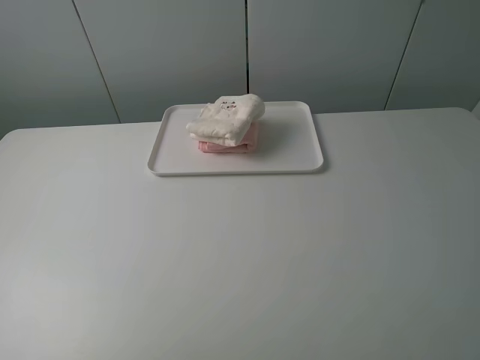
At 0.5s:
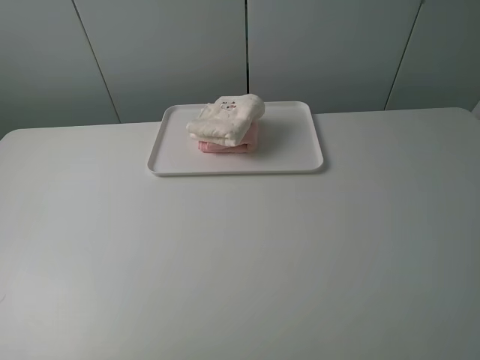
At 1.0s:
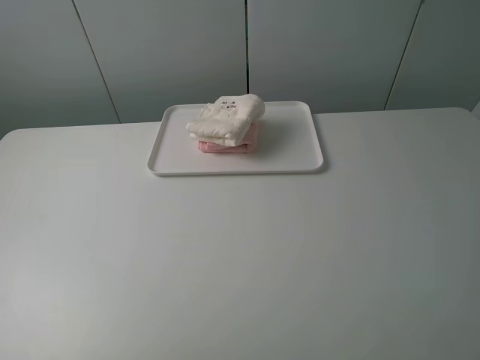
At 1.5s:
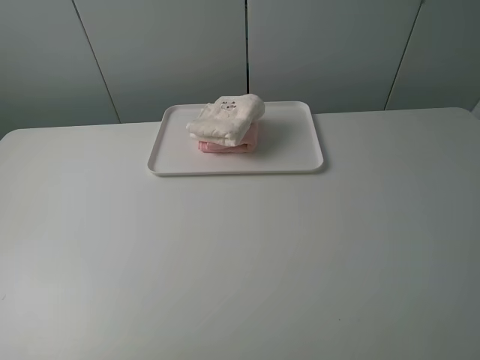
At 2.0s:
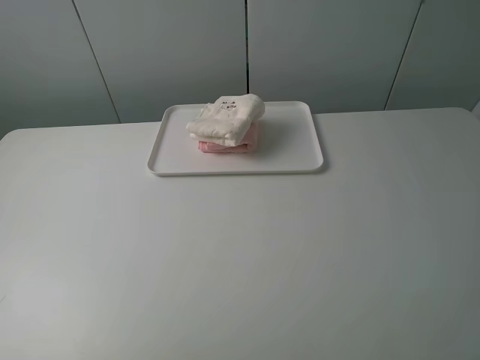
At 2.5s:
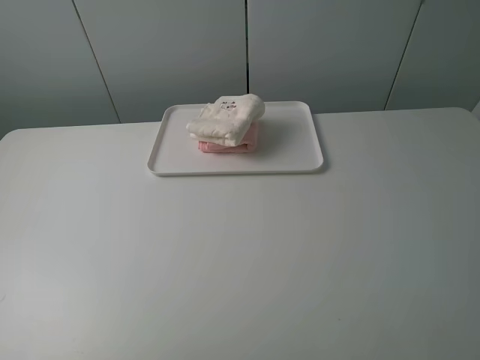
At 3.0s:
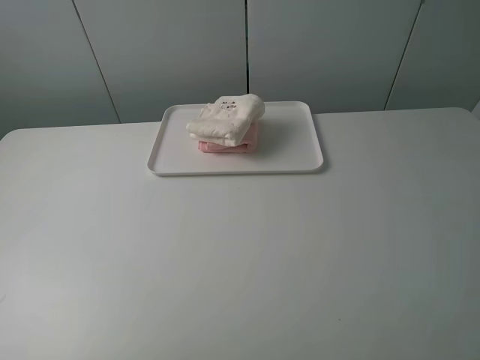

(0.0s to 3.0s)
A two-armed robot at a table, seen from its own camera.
Task of the whole recording: fold one of the towels by two grippers and place it on the tray,then fold another towel by two grippers and place it on the folded towel.
0.0s - 3.0s: Neither gripper changes place.

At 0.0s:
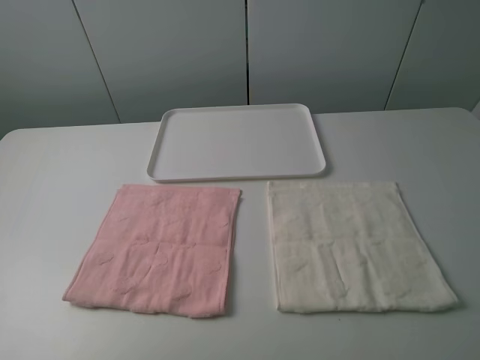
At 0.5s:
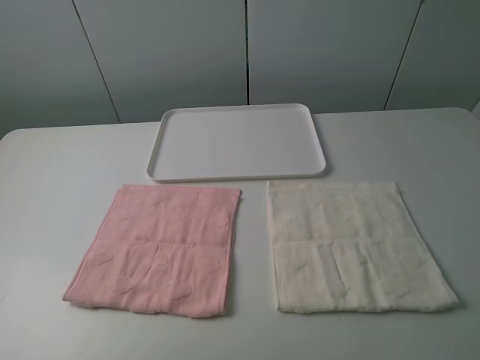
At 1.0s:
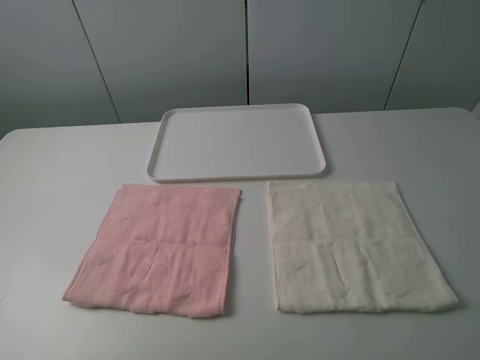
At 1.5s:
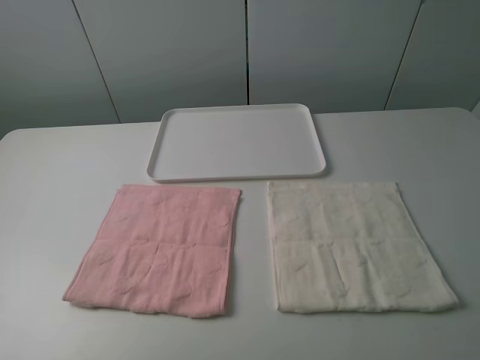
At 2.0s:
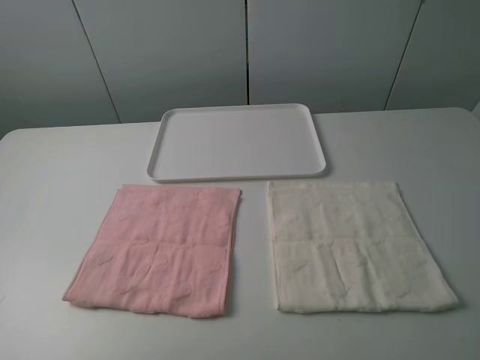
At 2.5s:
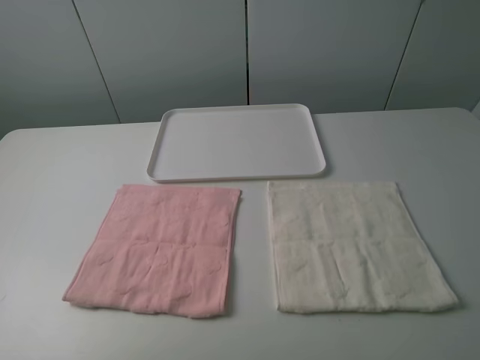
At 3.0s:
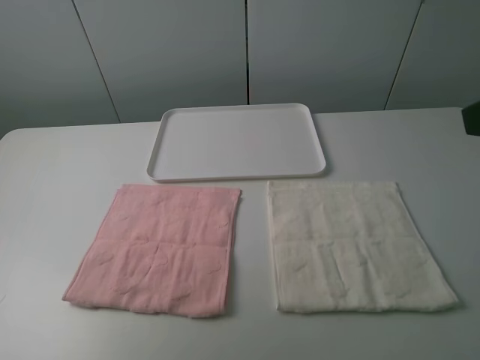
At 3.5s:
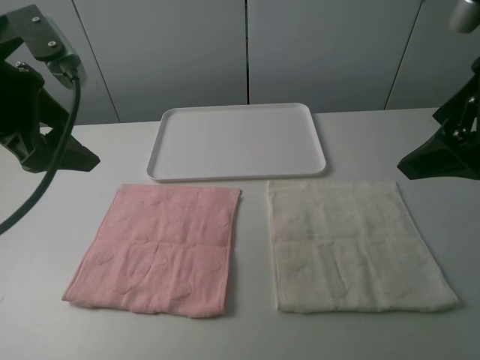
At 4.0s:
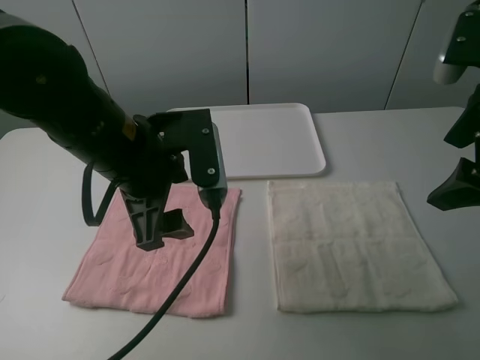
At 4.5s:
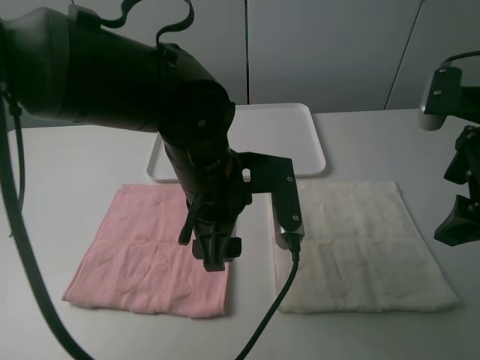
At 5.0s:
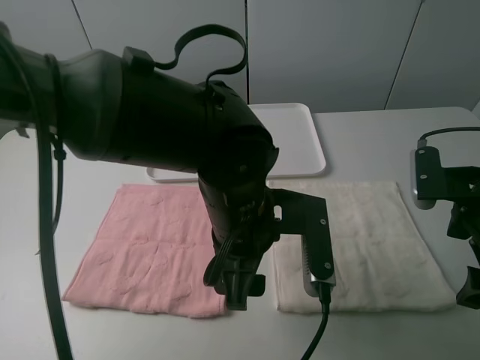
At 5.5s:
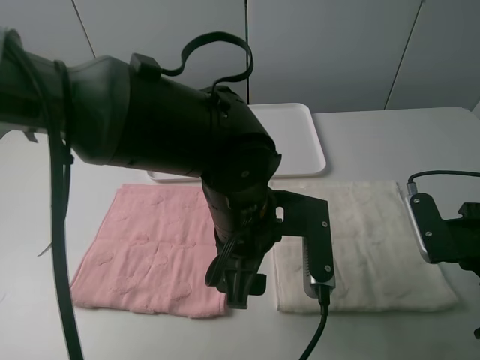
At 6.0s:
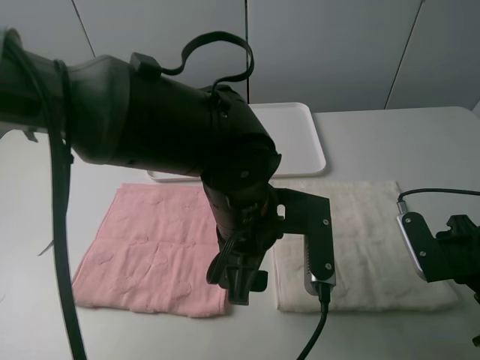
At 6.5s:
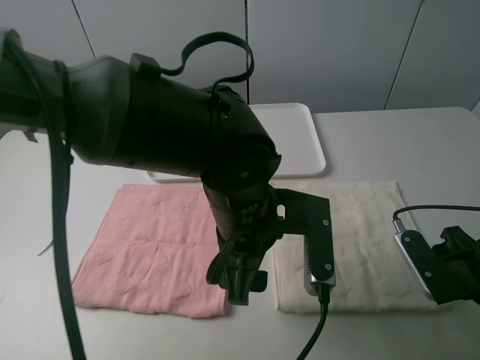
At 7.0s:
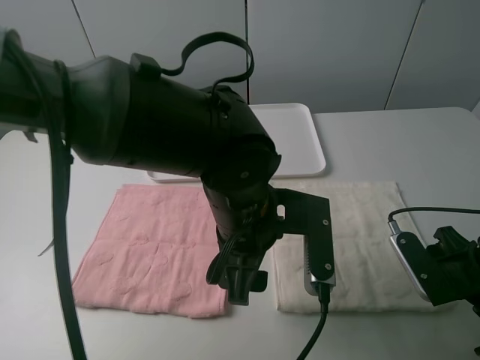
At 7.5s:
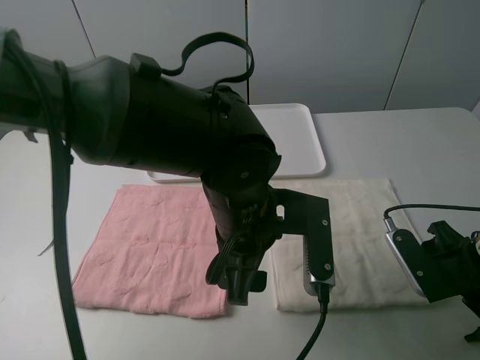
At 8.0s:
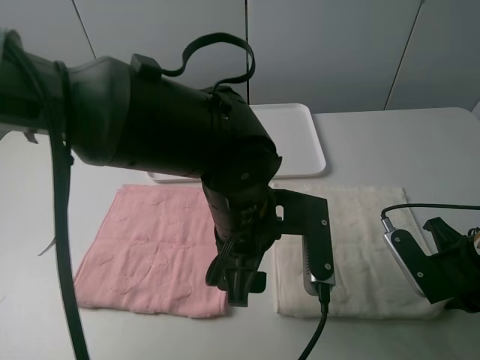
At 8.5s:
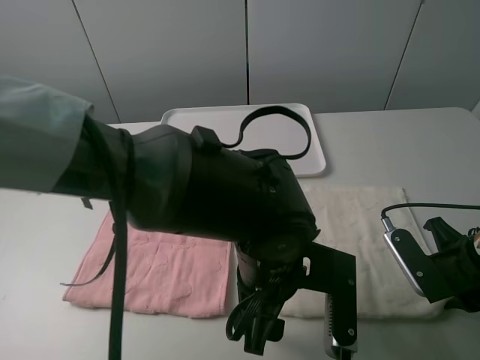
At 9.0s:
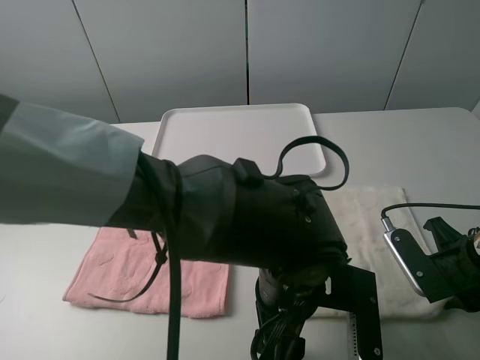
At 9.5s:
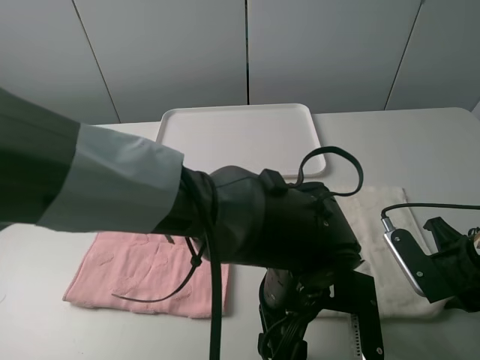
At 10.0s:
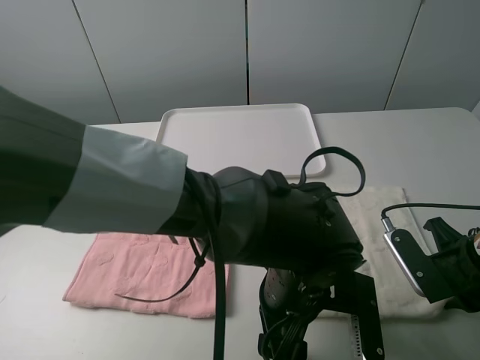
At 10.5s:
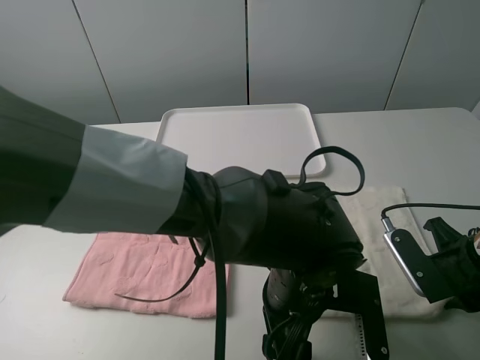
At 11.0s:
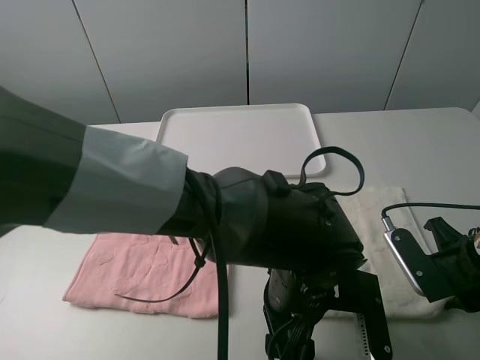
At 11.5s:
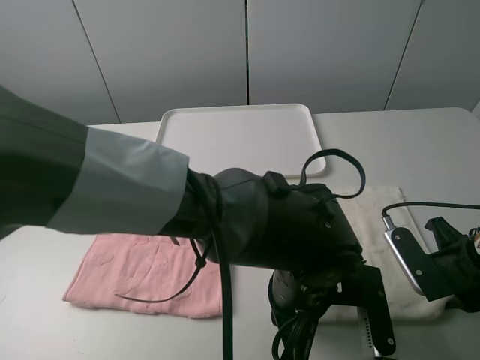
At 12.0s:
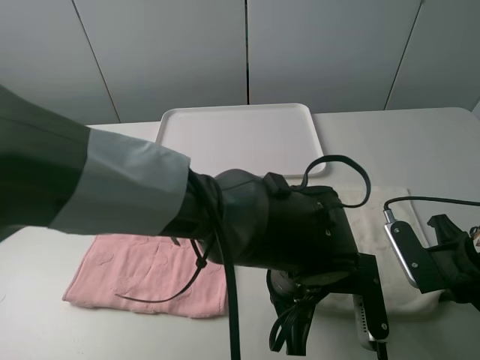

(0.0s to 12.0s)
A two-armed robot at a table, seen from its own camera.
Task of the whole recording: fold one of the towels by two grippers and place it on the tray,then fold another towel by two grippers and place it on the folded towel.
Step, 0.0s - 11.5s: Grasp the white towel with the left gripper.
2.0s - 4.0s: The left gripper shifts some 30 cm forward and to the right. The right gripper goes roughly 20 cm forward.
4.0s - 6.0s: The right gripper goes roughly 15 cm downward. The left gripper is displaced to the right and downward by roughly 10 cm.
6.0s - 8.0s: The right gripper closes.
8.0s - 10.0s: The left gripper is displaced downward and to the right by approximately 10 cm.
10.0s - 12.0s: The left gripper closes.

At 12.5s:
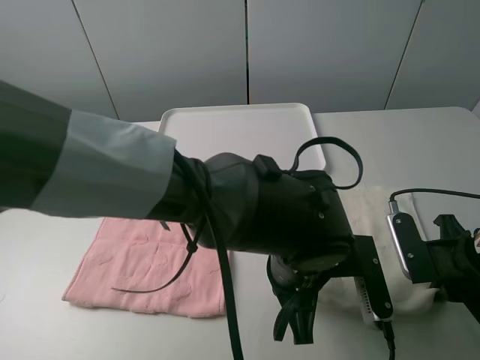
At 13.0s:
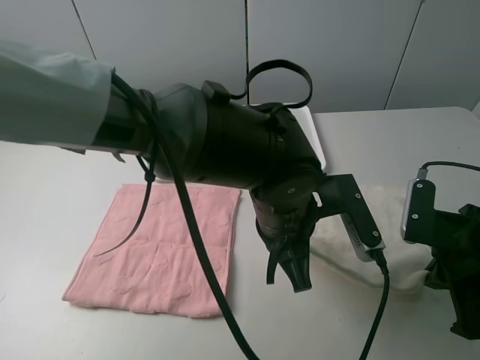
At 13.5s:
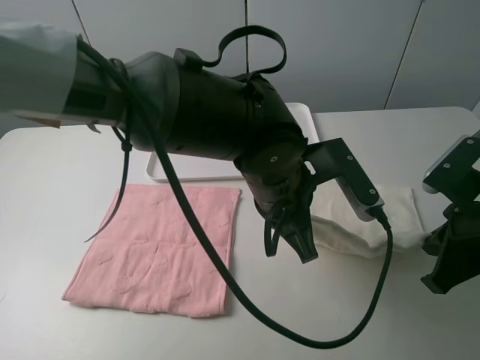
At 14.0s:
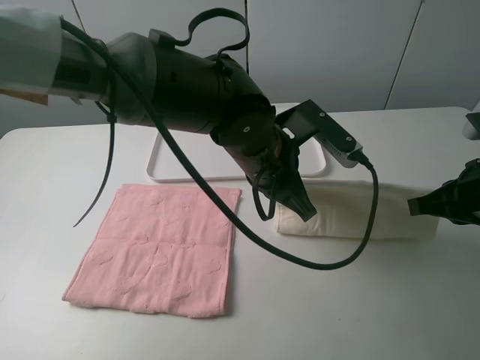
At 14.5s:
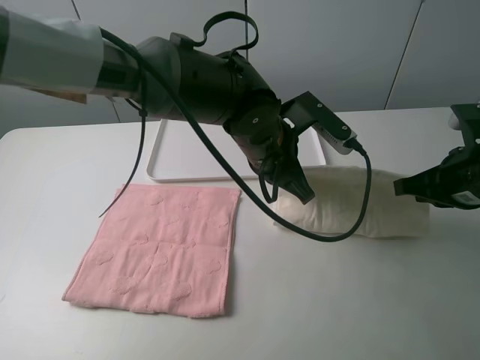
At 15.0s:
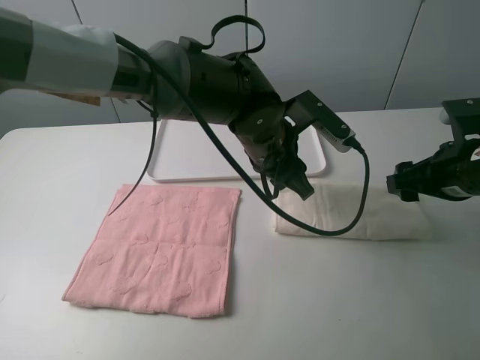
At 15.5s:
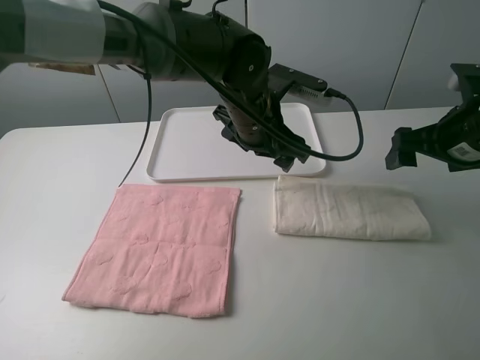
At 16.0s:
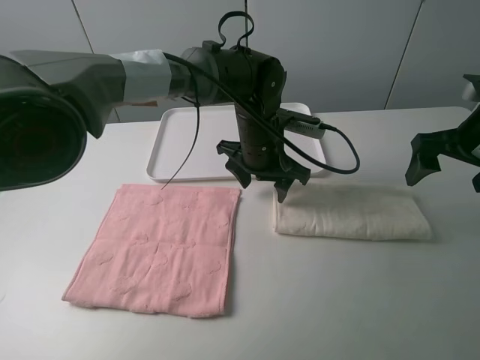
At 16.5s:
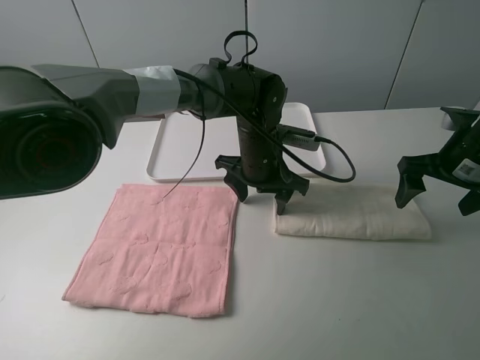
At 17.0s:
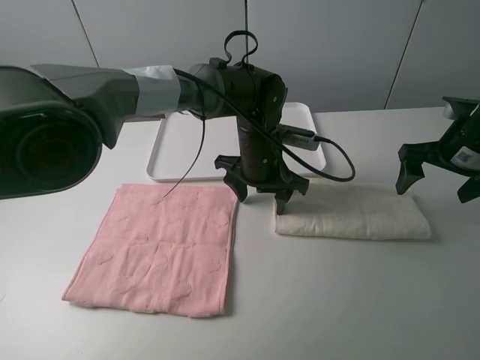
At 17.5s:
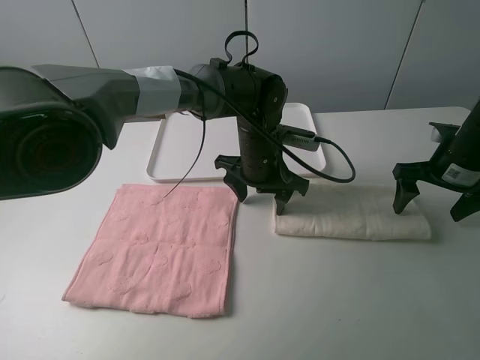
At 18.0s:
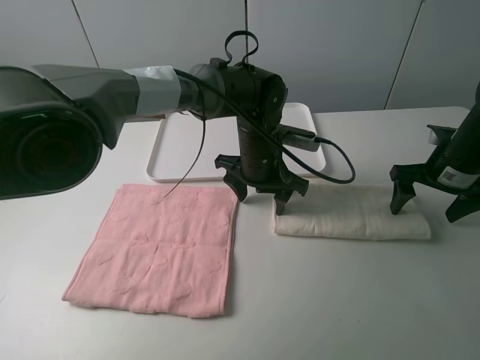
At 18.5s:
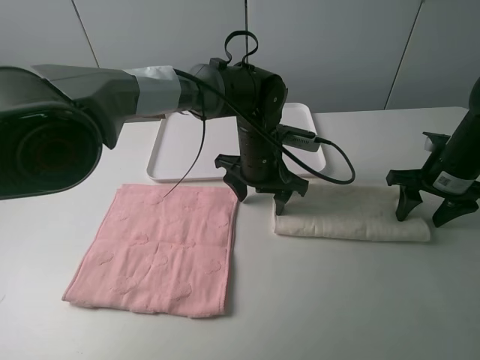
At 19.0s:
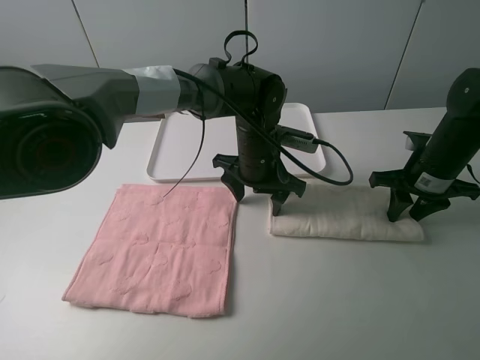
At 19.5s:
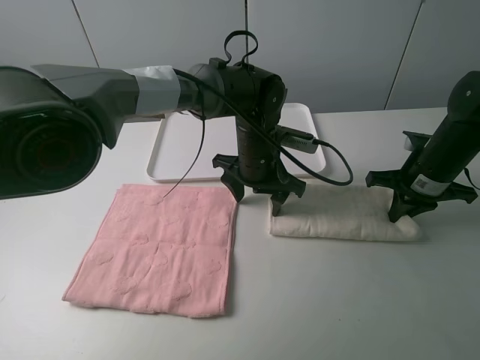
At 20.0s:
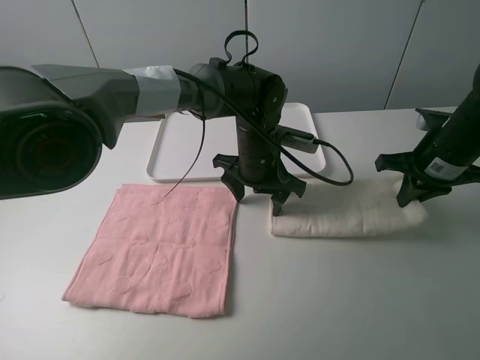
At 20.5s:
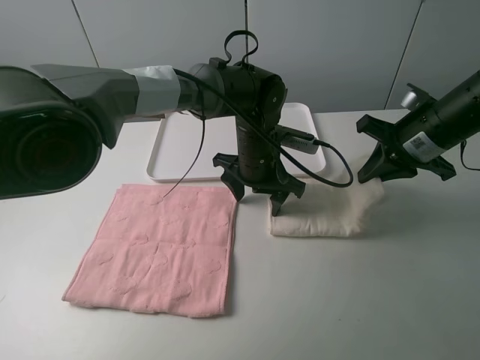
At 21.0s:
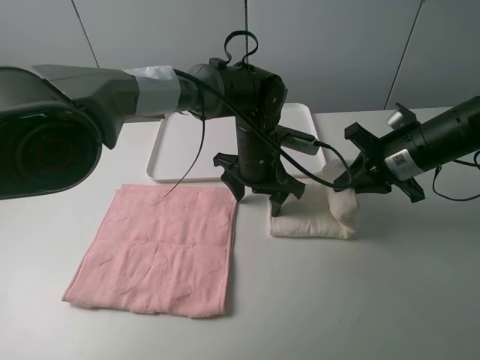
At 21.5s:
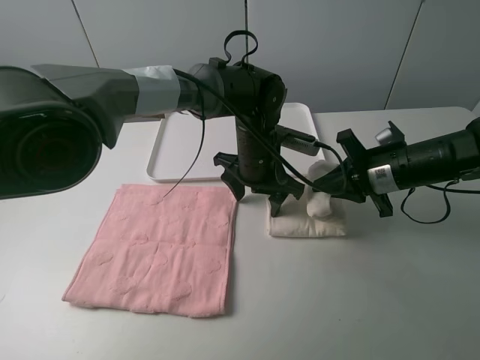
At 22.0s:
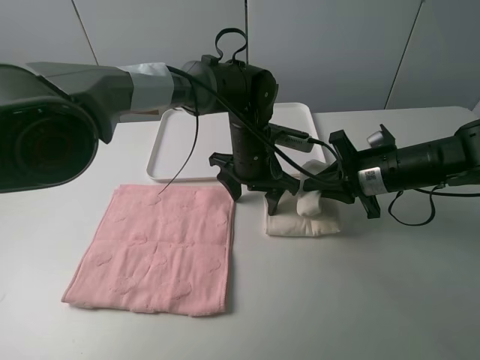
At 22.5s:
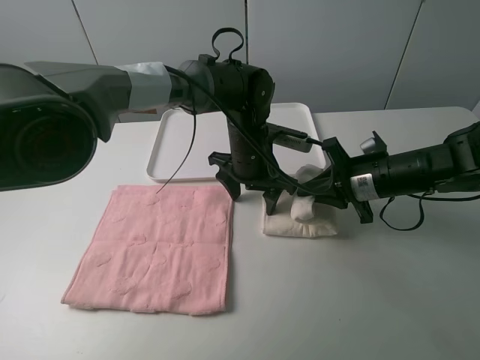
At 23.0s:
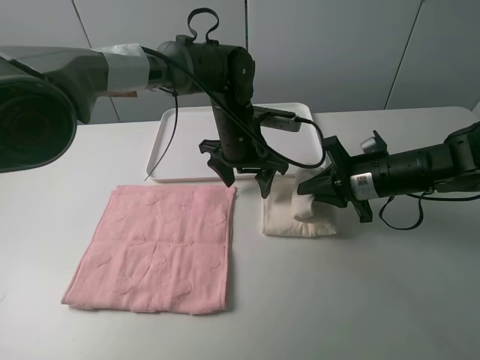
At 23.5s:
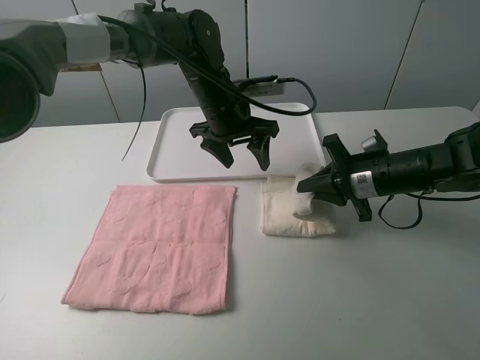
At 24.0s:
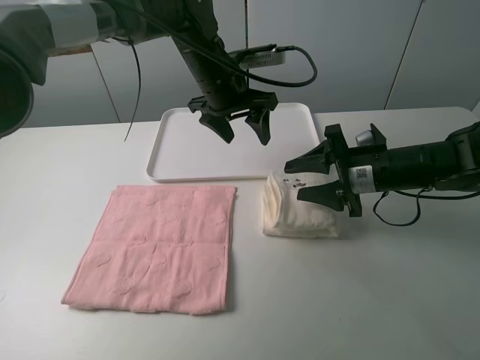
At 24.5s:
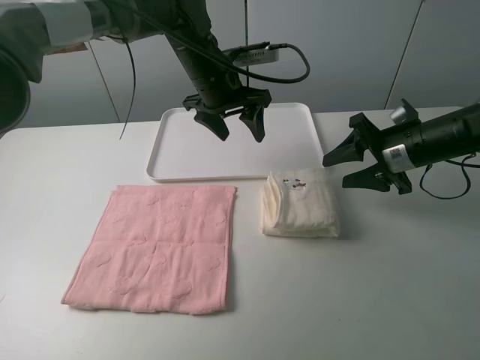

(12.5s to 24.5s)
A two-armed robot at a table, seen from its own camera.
Task of the whole recording: fold one of the towels by two grippers and place it on the tray,then fold another towel by two grippers and place it on the folded towel.
Step, 12.5s - 15.0s: Fold the white towel upwards with the left gripper.
Step, 15.5s - 17.0s: Press the white towel with the left gripper.
Step, 17.5s - 19.0s: Grasp the white towel with the right gripper.
Step, 19.5s - 24.0s: Fold the white towel from right to left with right gripper.
12.5s - 14.5s: The left gripper is displaced forward and upward by about 15 cm; the right gripper moves forward and upward, some 10 cm.
14.5s - 16.5s: The right gripper goes about 5 cm forward, and opens its fingers, while the left gripper shifts approximately 10 cm downward and forward, and opens.
16.5s - 18.5s: The right gripper moves downward, some 5 cm, and closes its fingers.
18.5s - 20.5s: The right gripper goes about 10 cm upward and to the left, and closes its fingers.
20.5s - 22.5s: The right gripper goes approximately 10 cm downward.
22.5s - 24.5s: The right gripper shifts by about 5 cm, and opens up; the left gripper heads upward, to the left and forward, covering about 10 cm.
